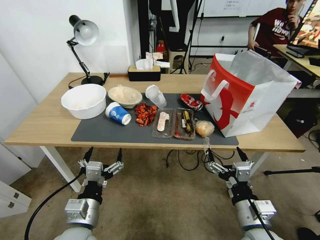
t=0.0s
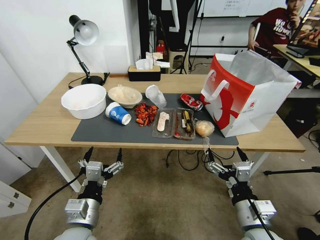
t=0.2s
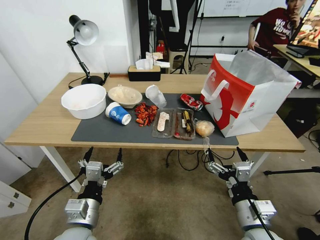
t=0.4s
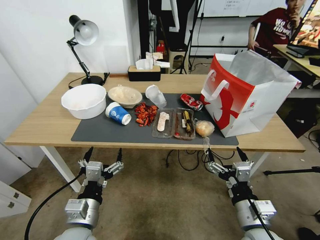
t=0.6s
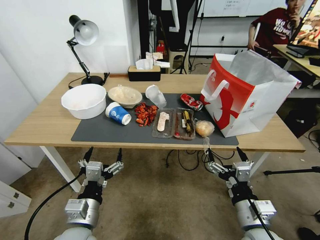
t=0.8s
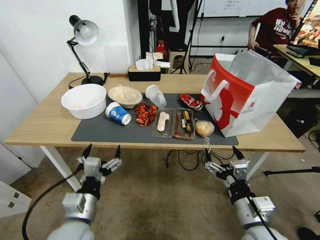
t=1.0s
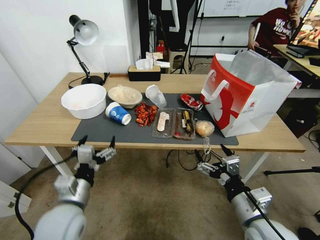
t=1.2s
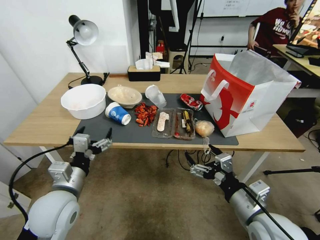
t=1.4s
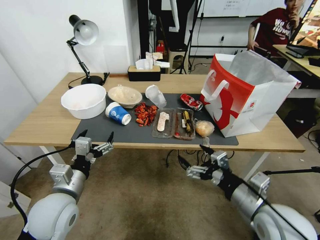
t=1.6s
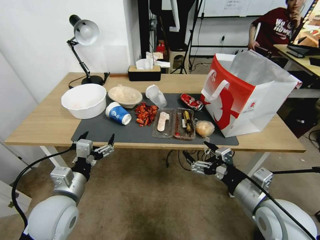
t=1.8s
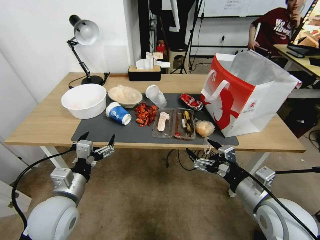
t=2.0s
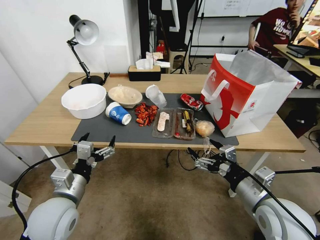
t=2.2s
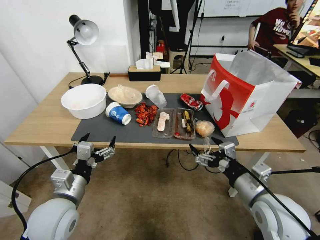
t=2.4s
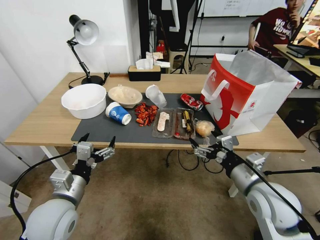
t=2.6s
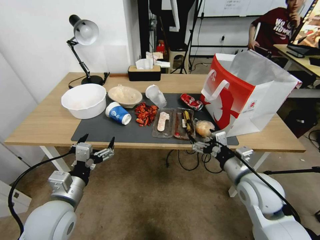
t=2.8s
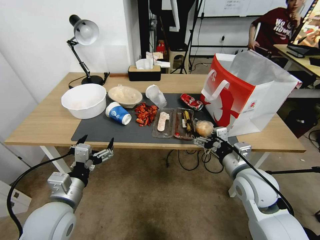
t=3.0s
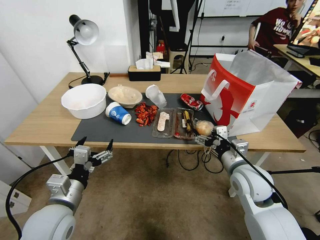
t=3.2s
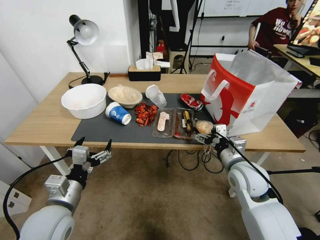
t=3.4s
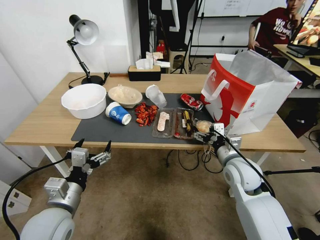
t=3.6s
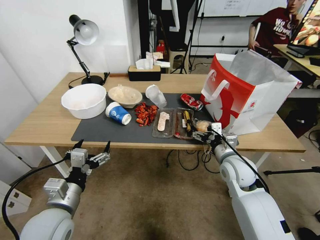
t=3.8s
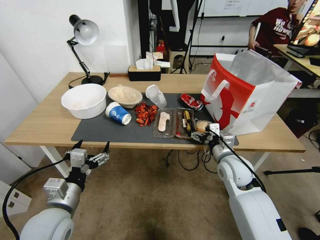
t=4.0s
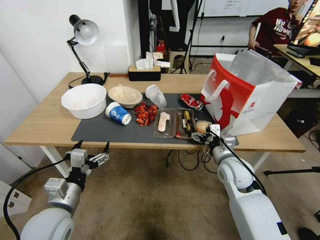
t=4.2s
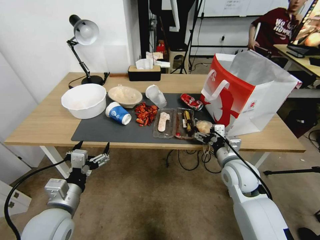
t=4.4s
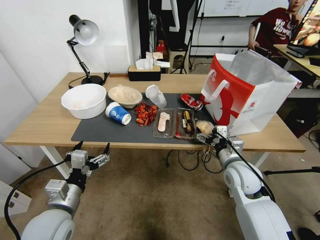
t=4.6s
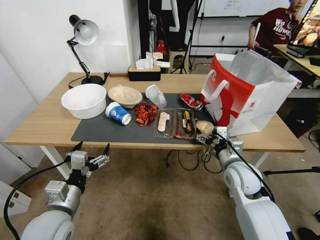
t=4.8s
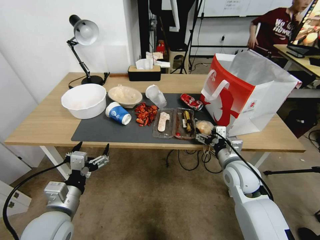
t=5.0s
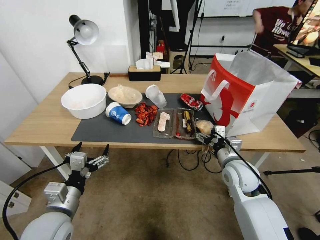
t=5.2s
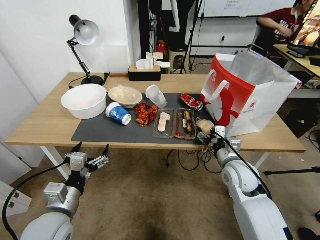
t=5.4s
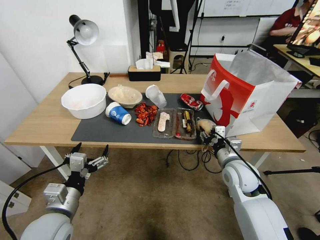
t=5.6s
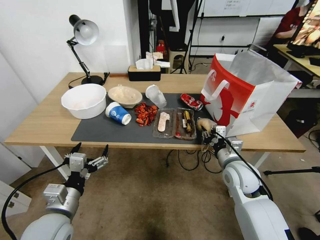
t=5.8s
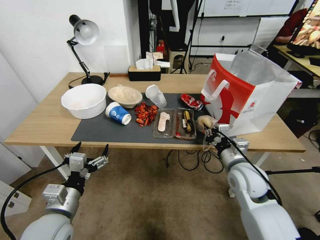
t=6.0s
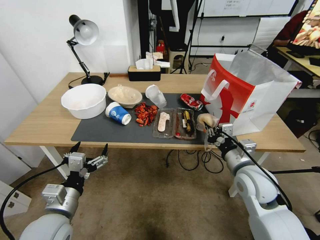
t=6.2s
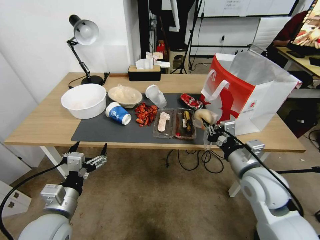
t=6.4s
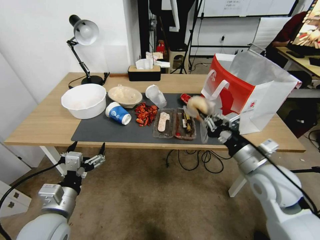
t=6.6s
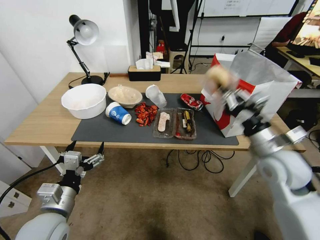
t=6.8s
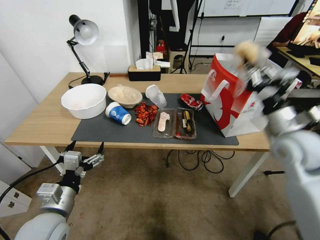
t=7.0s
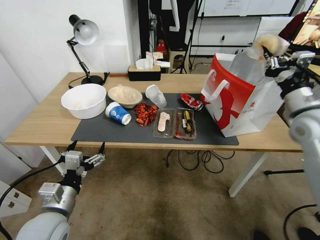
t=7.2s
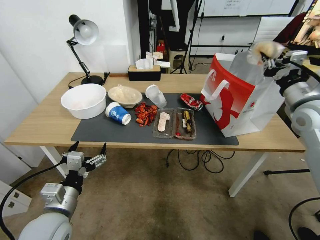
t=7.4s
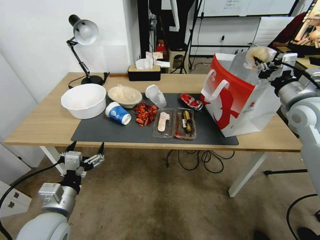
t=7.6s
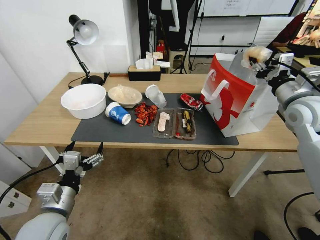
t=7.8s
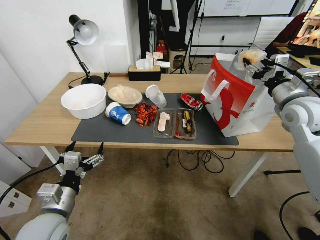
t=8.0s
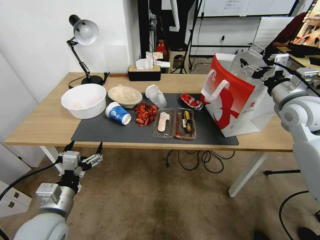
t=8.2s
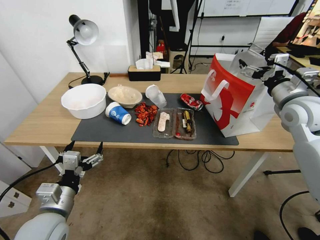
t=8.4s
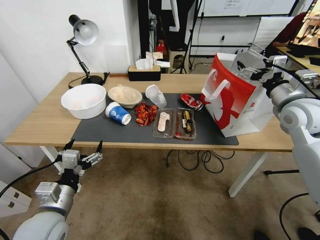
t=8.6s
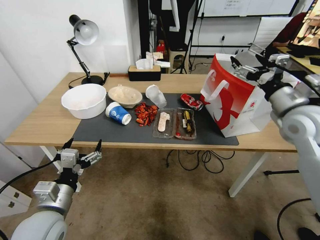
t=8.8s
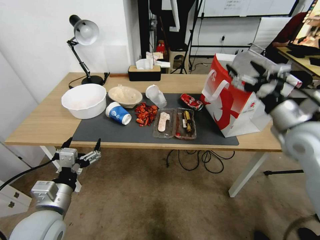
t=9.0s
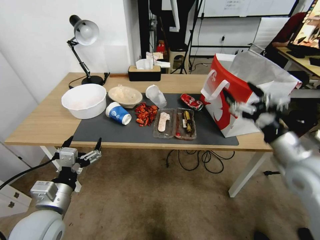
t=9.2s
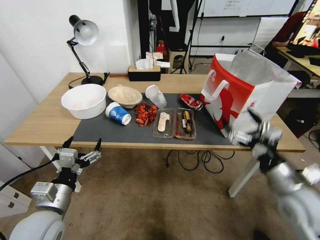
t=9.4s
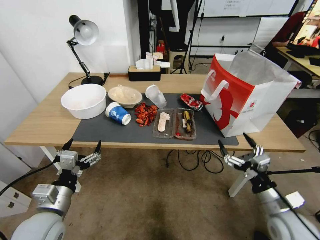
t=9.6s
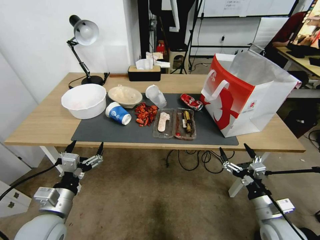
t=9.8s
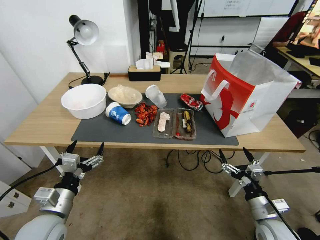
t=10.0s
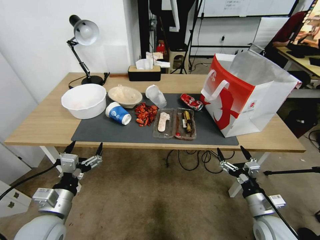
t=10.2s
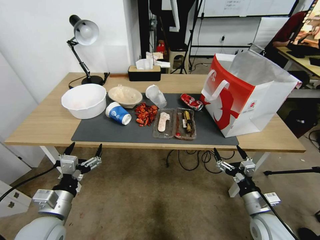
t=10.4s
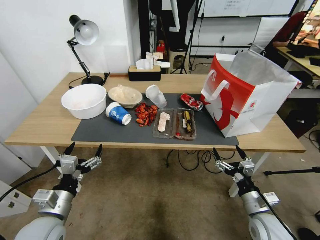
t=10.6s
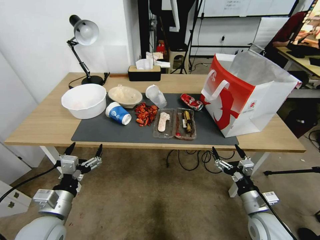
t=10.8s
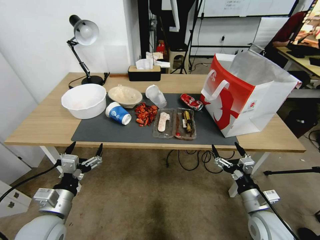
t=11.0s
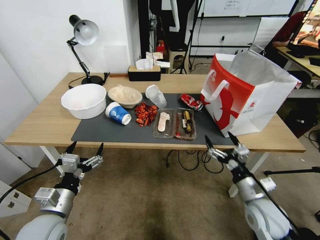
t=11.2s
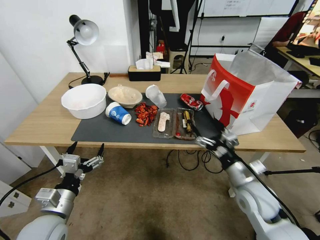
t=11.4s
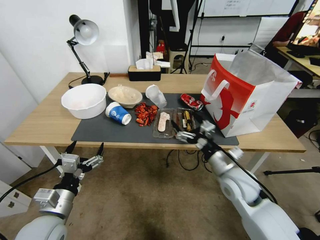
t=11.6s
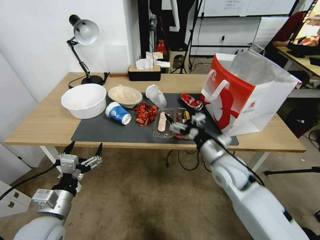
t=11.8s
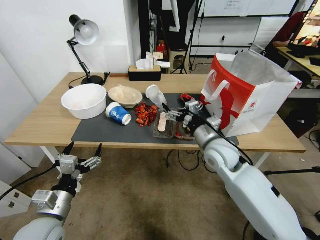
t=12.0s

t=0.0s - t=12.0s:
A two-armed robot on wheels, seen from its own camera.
t=1.6s - t=3.0s: The right gripper heads forward, covering roughly 10 cm.
t=3.0s - t=4.4s: The right gripper ends up some 5 cm from where it was.
t=4.4s - t=6.0s: The right gripper closes its fingers.
t=6.0s - t=7.6s: The right gripper travels upward, to the right and forward by about 25 cm.
t=7.6s - t=9.0s: The right gripper goes some 5 cm backward, and opens.
t=9.0s - t=10.4s: The right gripper is displaced downward and backward by roughly 30 cm.
t=10.4s - t=12.0s: The right gripper is displaced forward, upward and to the left by approximately 25 cm.

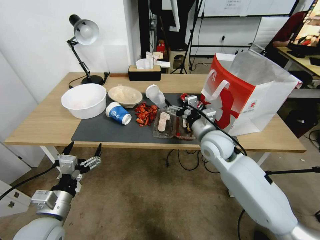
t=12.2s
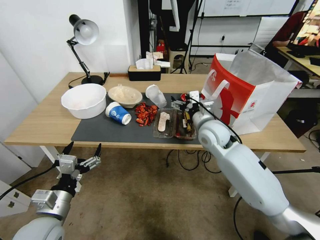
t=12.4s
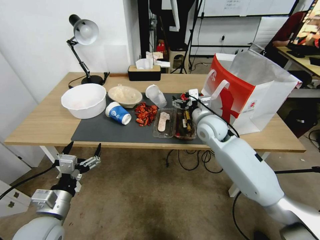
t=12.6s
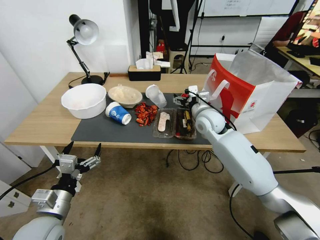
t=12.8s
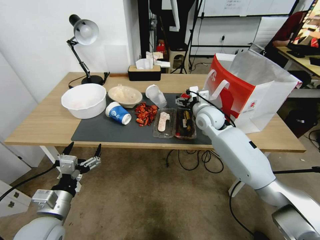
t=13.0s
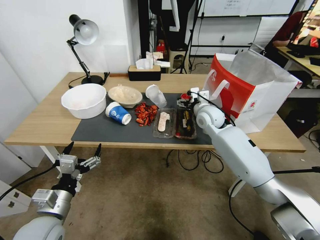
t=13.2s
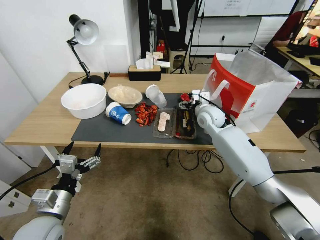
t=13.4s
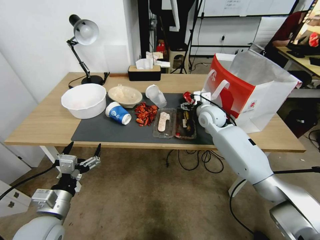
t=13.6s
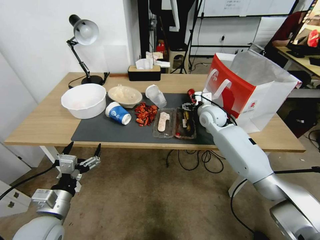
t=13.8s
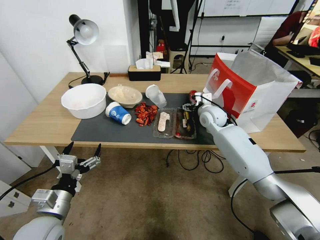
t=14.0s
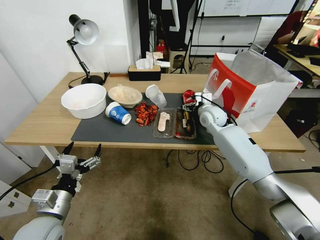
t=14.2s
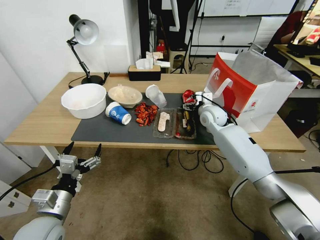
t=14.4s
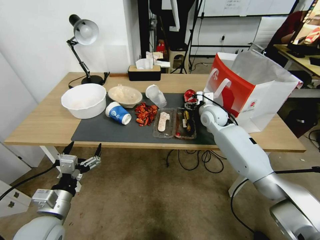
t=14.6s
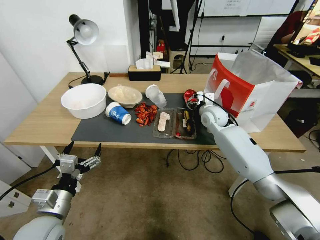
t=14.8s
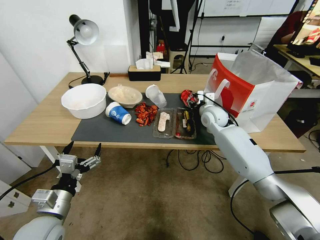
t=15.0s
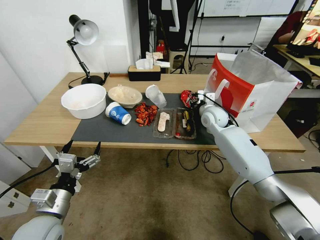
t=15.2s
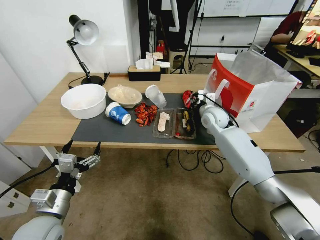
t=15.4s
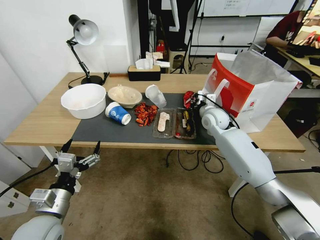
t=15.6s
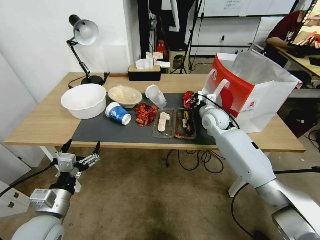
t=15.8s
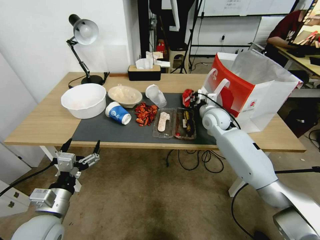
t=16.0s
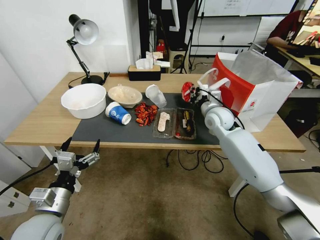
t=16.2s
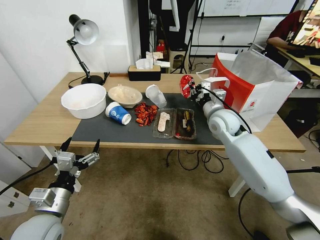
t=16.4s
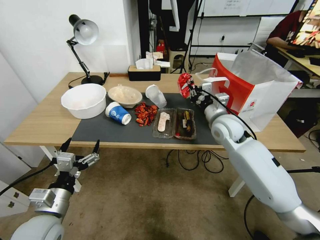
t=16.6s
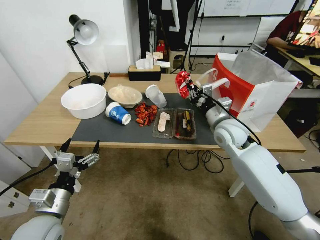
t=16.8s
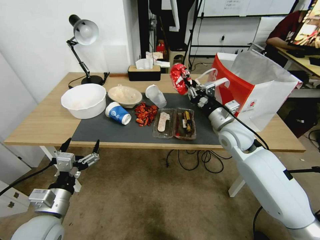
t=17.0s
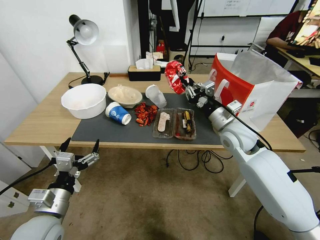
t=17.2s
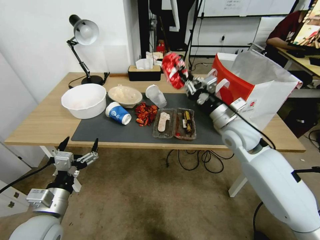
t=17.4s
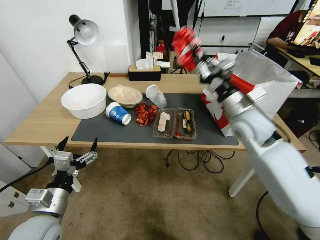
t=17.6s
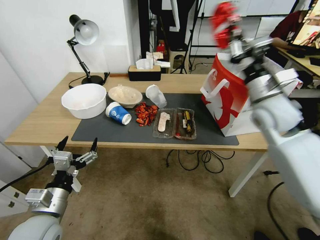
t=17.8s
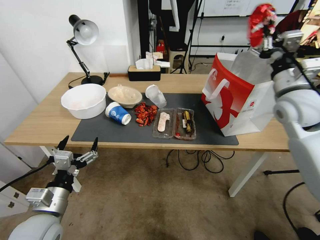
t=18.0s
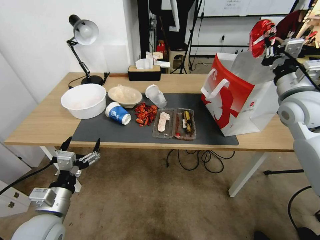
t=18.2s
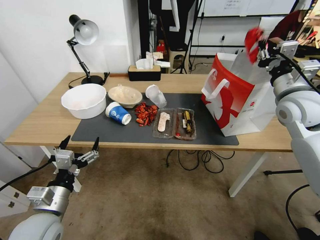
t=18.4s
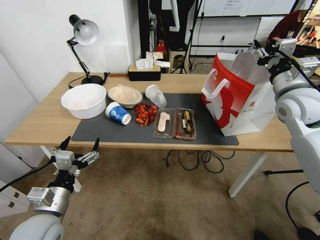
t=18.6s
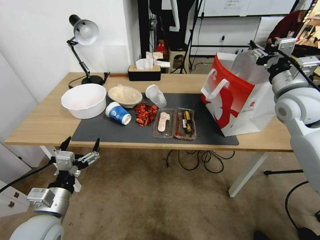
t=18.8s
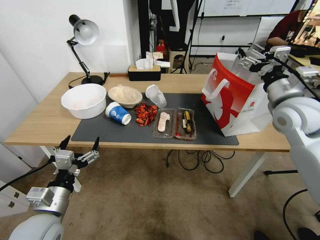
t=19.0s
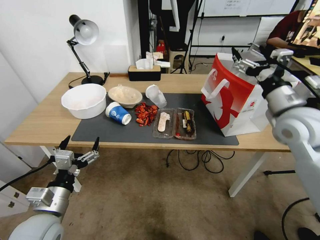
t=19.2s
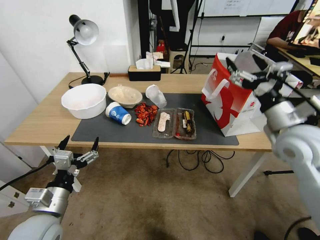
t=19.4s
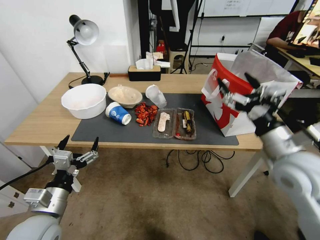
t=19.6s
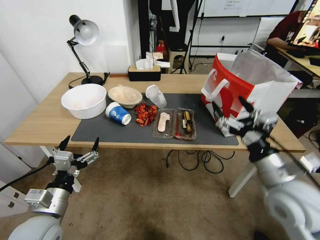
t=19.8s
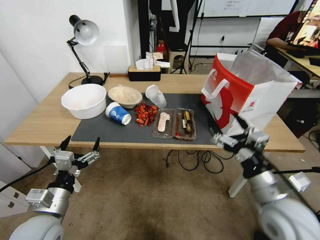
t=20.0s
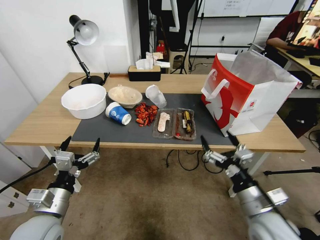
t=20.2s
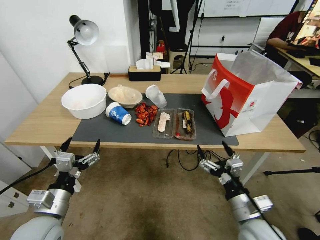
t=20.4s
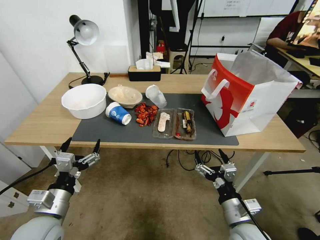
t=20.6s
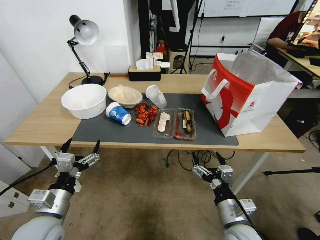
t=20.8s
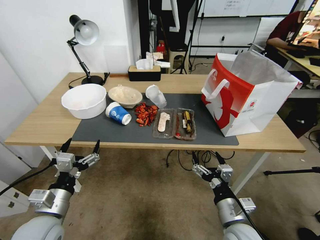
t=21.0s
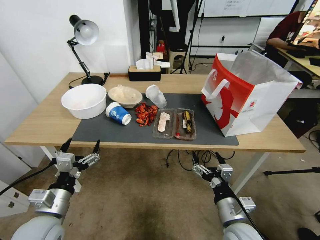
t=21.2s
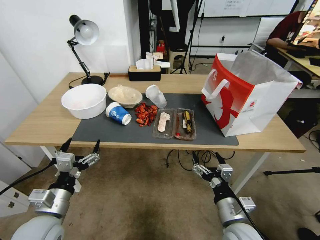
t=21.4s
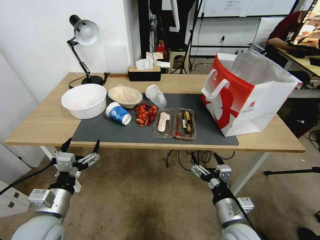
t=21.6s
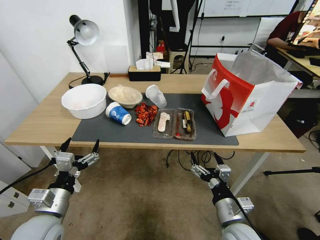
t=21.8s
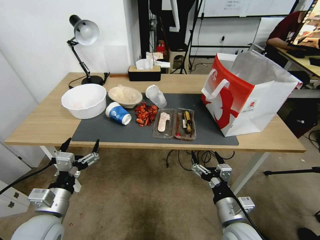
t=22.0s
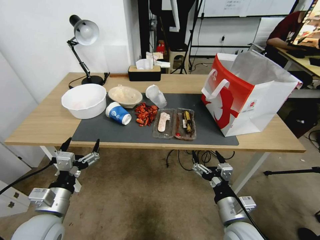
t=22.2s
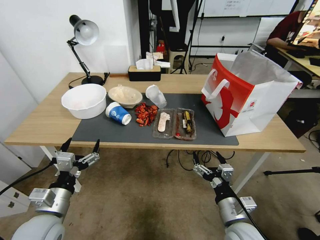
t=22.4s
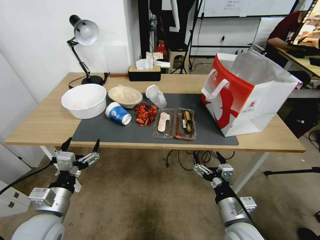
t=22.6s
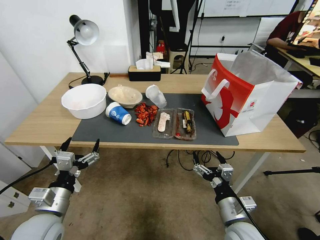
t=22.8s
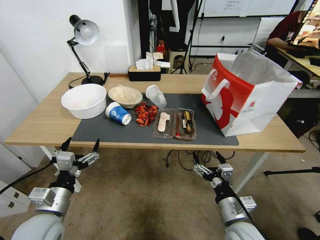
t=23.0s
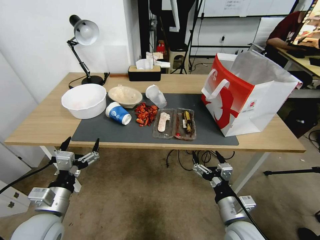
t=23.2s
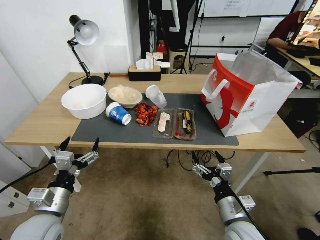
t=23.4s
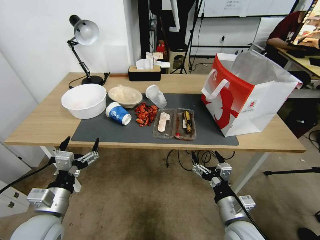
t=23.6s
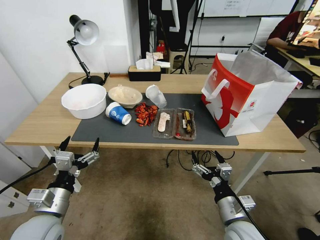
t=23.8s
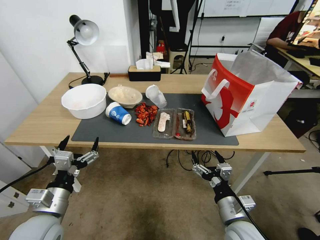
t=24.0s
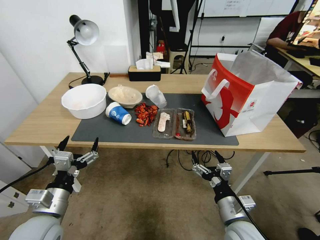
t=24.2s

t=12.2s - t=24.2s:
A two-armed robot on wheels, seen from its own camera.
t=12.2s - t=13.8s: The right gripper heads forward, covering some 15 cm.
t=13.8s - t=15.2s: The right gripper closes.
t=15.2s - t=16.6s: The right gripper heads backward, covering some 10 cm.
t=16.6s - t=18.2s: The right gripper is displaced to the right and upward by about 20 cm.
t=18.2s - t=19.8s: The right gripper travels backward, downward and to the left by about 20 cm, and opens.
t=19.8s - t=21.2s: The right gripper travels downward and to the left by some 20 cm.
t=21.2s - t=24.2s: The two grippers keep their place.
